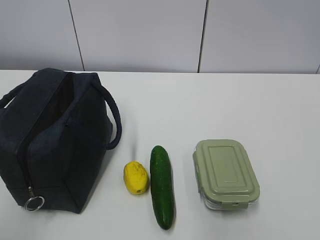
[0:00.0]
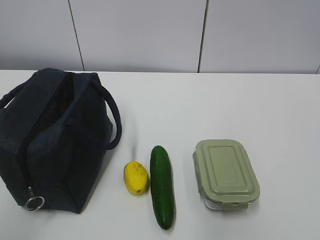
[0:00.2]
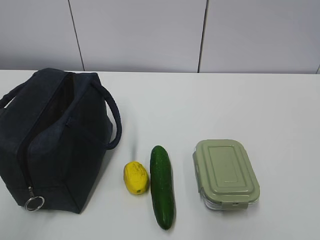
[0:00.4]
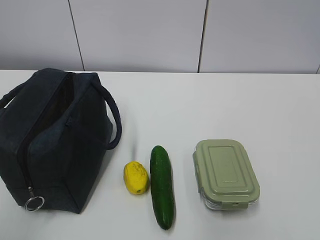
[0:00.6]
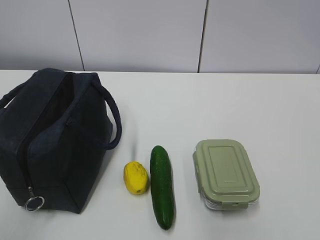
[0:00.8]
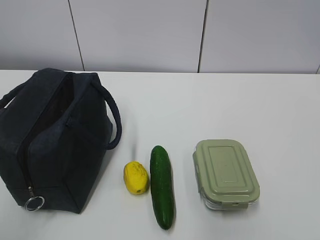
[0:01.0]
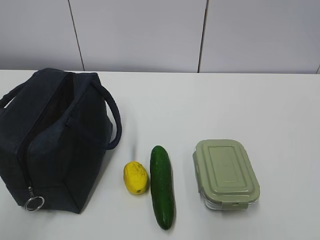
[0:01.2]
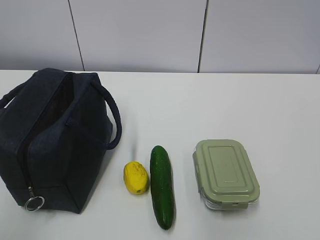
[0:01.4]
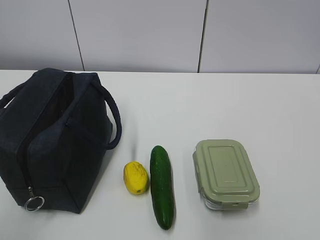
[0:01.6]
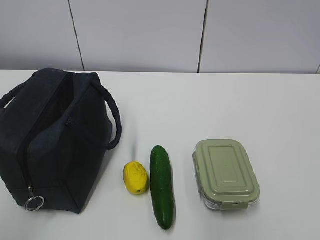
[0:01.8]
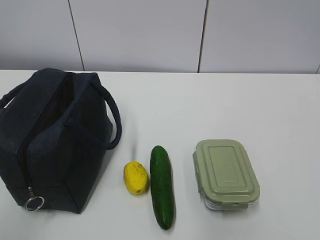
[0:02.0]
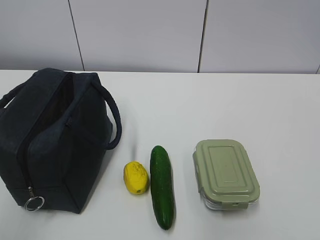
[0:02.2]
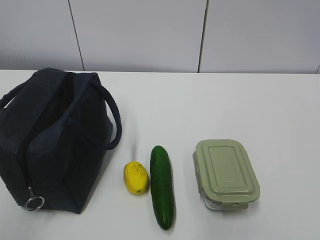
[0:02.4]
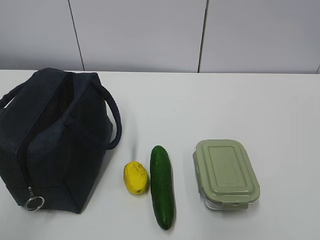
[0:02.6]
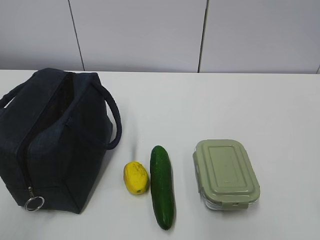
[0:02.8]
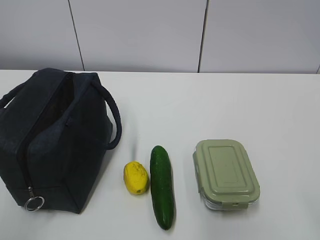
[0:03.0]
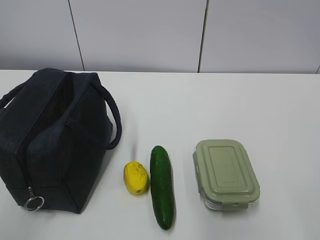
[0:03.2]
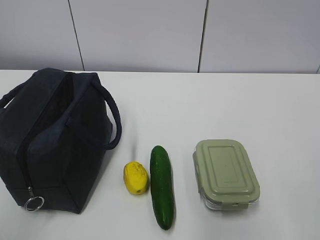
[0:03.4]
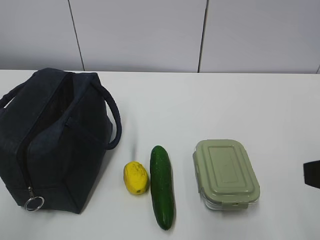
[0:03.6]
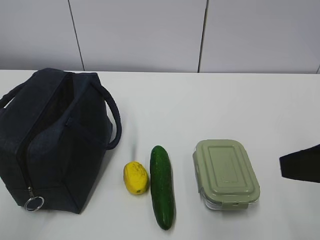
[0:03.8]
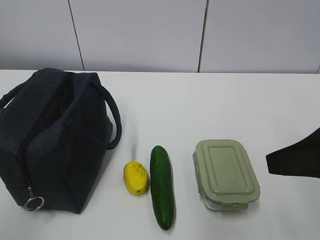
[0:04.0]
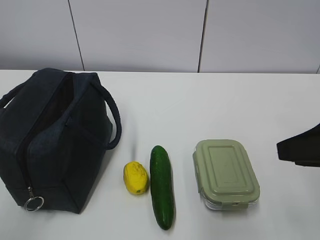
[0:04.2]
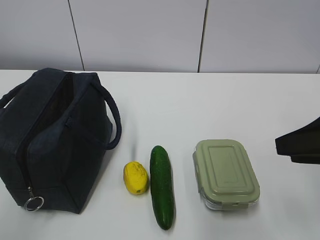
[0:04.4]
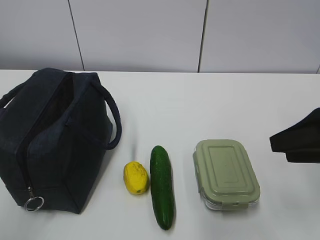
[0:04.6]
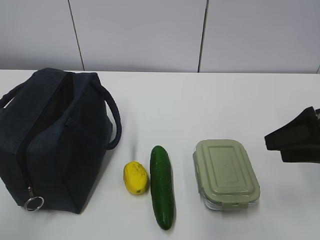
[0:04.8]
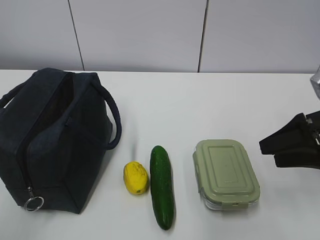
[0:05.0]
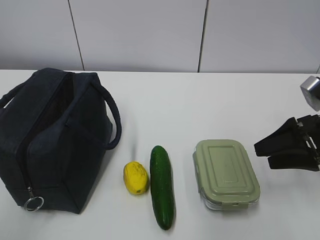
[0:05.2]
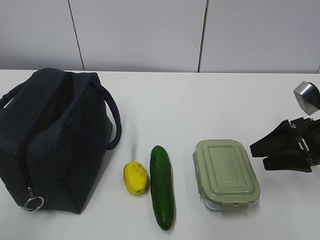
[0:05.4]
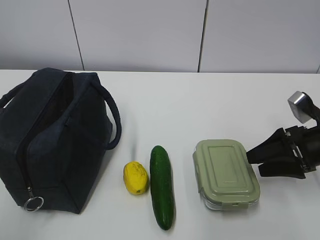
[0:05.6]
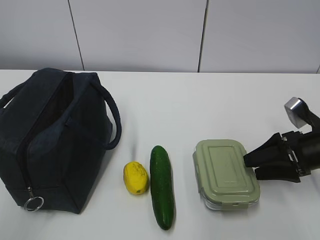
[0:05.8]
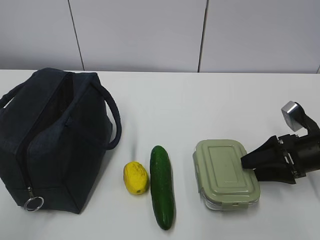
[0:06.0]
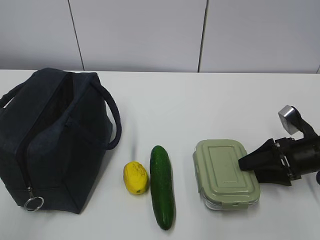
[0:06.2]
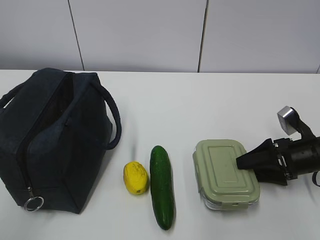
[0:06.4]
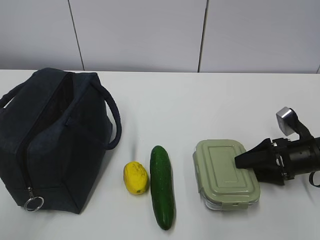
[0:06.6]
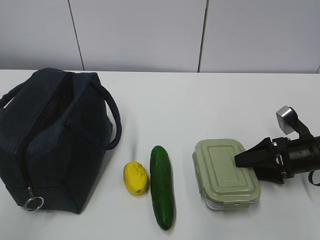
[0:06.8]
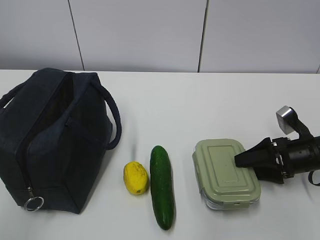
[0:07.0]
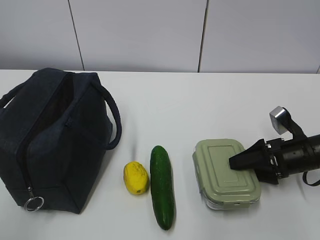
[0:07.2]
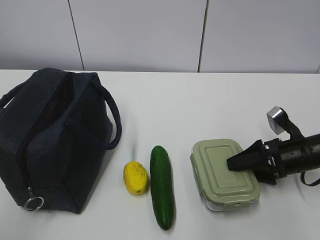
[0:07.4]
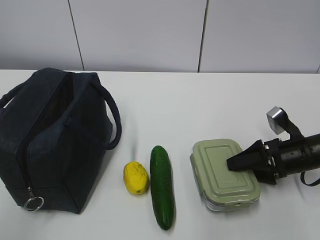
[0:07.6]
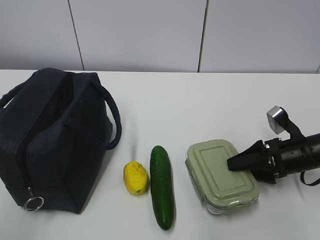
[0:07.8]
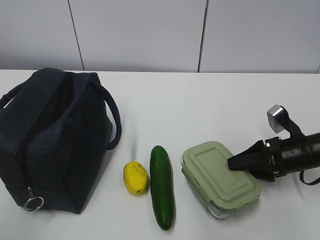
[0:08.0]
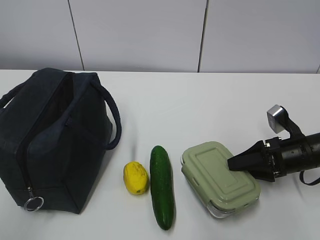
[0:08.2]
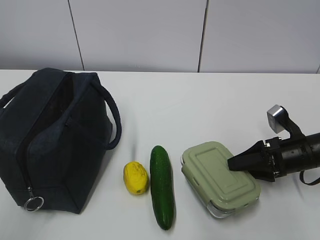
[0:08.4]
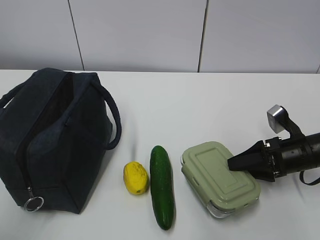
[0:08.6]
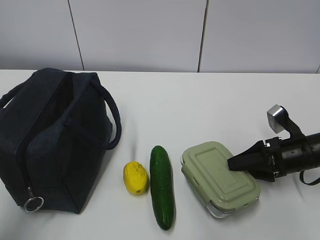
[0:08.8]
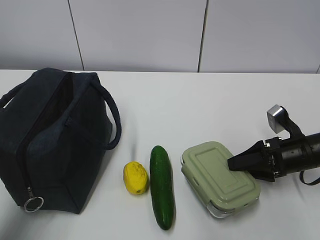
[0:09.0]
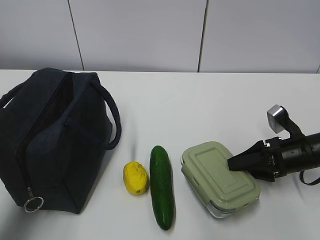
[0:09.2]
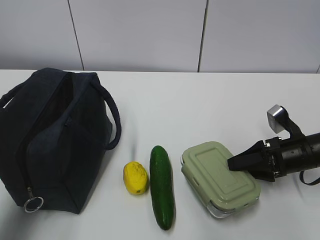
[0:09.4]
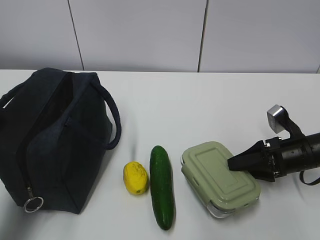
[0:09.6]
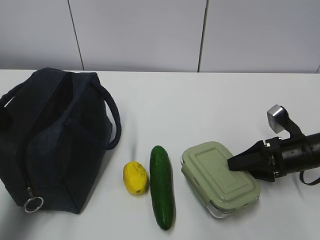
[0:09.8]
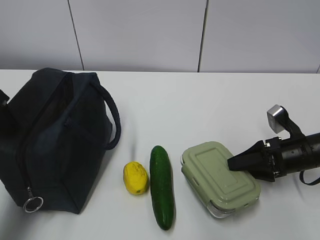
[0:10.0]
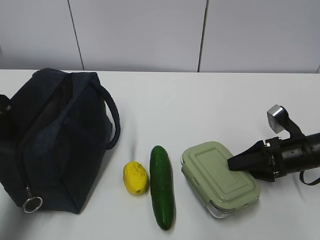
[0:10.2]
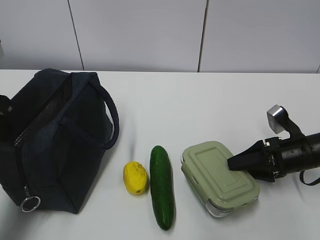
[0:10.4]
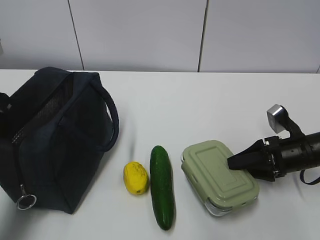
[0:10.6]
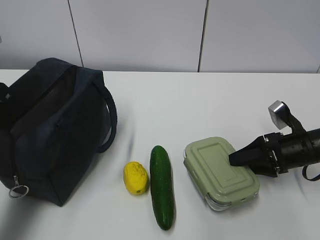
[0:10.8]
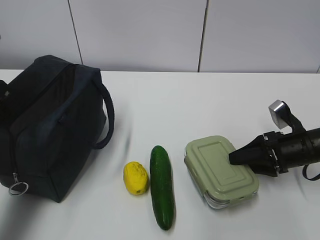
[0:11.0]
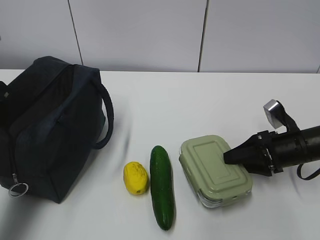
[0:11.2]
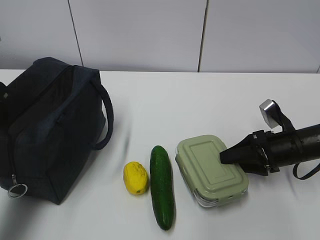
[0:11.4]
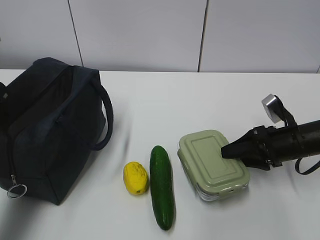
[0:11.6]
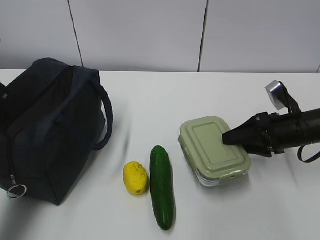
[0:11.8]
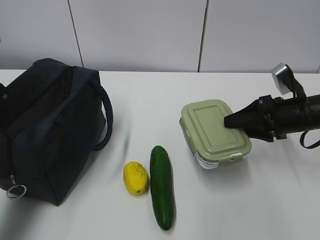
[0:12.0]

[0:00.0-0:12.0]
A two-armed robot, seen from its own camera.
Step, 0:00.0 to 0:06.6: Grab the lunch box with your right hand.
Step, 0:06.8 to 0:11.2: Grab the lunch bag with your left hand.
0:03.0 to 0:04.4: The right gripper shifts approximately 15 cm forward.
0:04.4 to 0:06.0: The right gripper moves downward and forward, some 20 cm.
0:06.0 to 0:07.6: The grippers move only a little.
0:07.6 to 0:09.0: The left gripper goes roughly 15 cm forward.
0:09.0 to 0:10.4: The left gripper is displaced forward and downward by approximately 15 cm, and closes up.
0:10.4 to 0:12.0: The right gripper shifts some 10 cm upward.

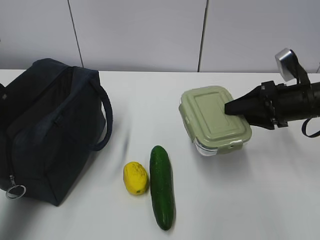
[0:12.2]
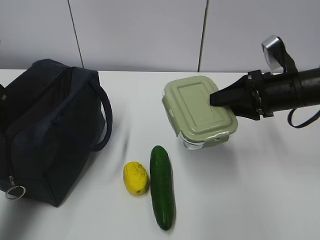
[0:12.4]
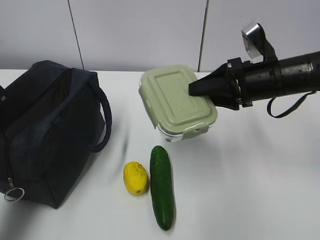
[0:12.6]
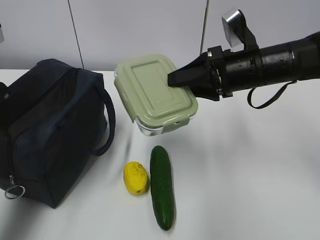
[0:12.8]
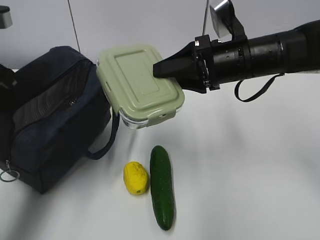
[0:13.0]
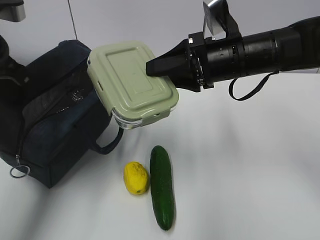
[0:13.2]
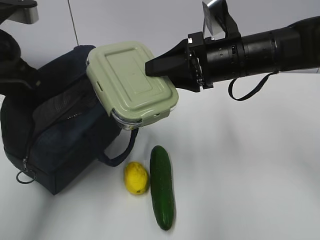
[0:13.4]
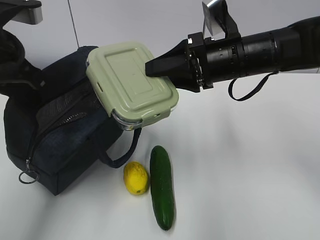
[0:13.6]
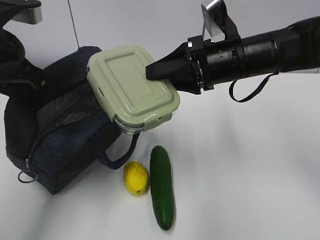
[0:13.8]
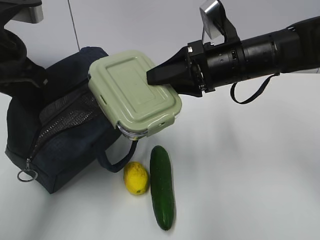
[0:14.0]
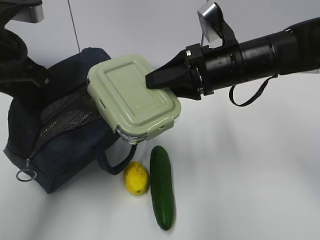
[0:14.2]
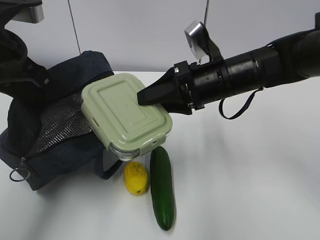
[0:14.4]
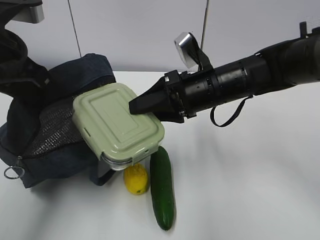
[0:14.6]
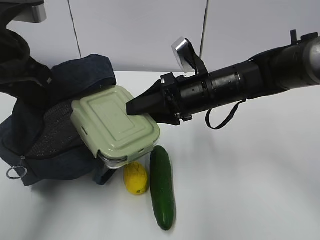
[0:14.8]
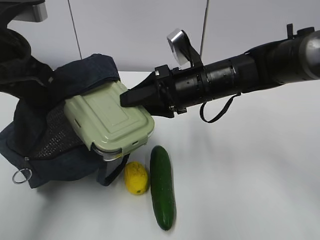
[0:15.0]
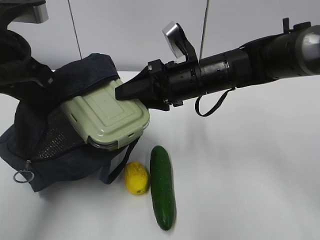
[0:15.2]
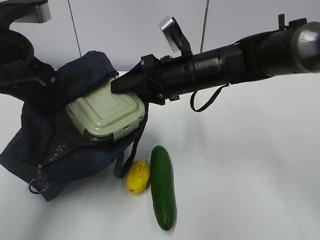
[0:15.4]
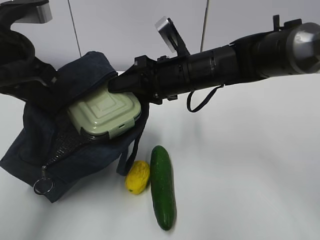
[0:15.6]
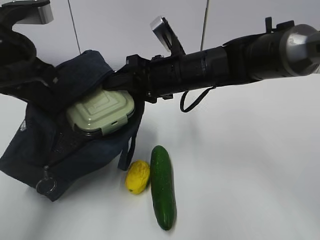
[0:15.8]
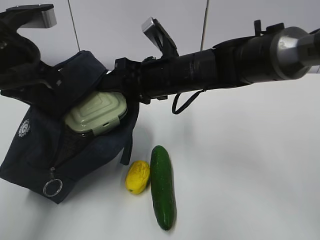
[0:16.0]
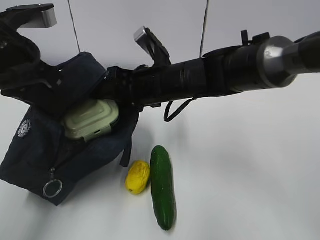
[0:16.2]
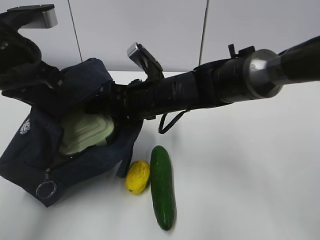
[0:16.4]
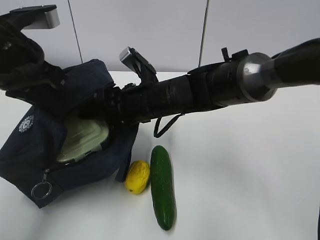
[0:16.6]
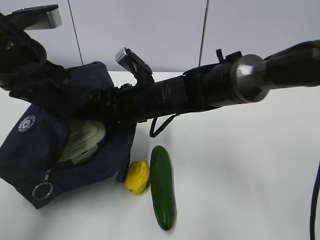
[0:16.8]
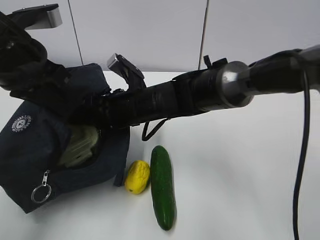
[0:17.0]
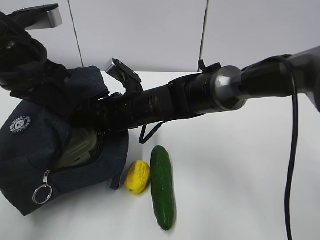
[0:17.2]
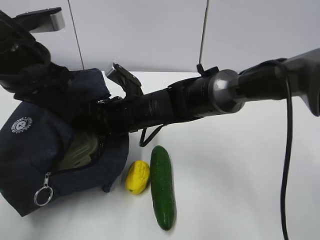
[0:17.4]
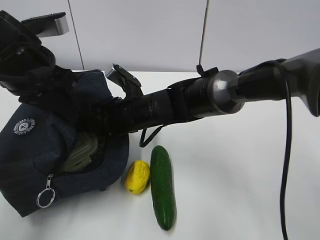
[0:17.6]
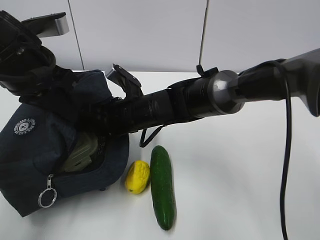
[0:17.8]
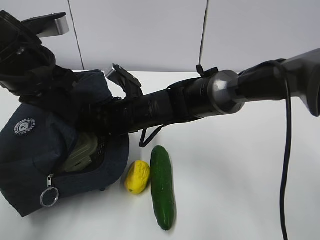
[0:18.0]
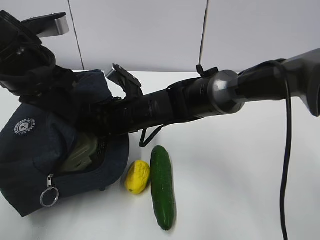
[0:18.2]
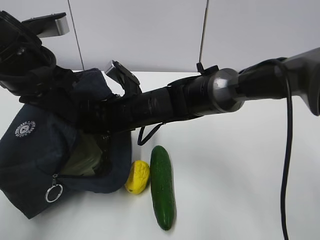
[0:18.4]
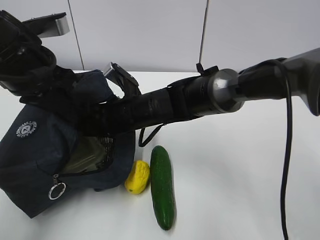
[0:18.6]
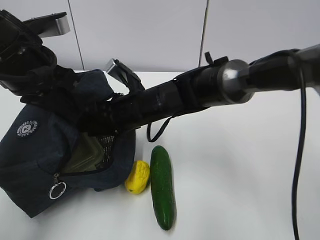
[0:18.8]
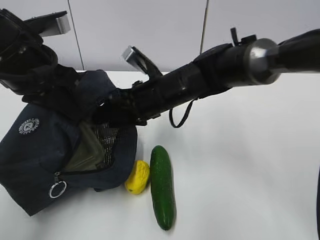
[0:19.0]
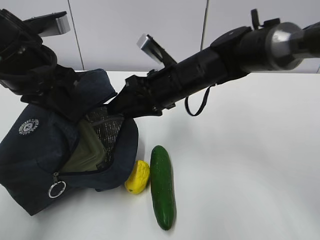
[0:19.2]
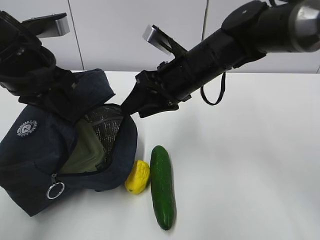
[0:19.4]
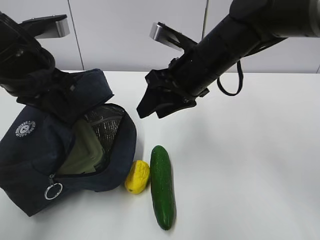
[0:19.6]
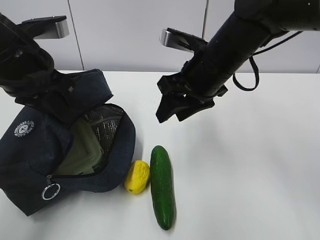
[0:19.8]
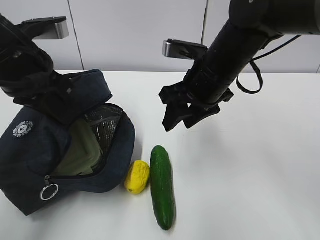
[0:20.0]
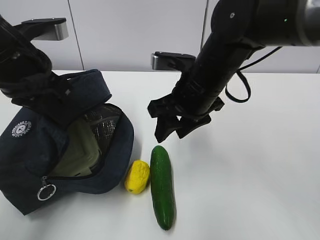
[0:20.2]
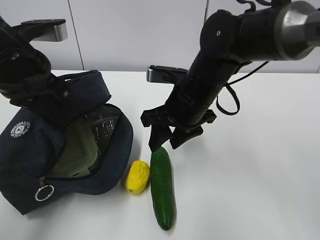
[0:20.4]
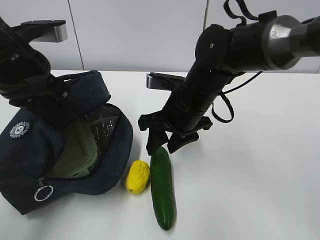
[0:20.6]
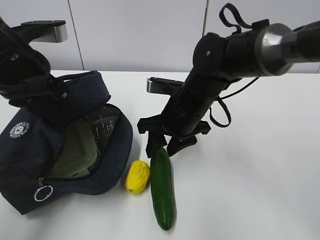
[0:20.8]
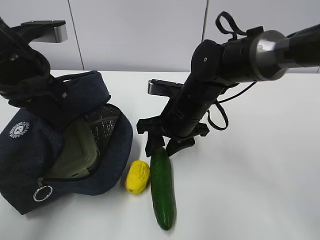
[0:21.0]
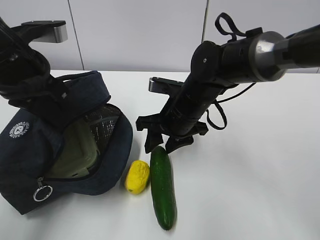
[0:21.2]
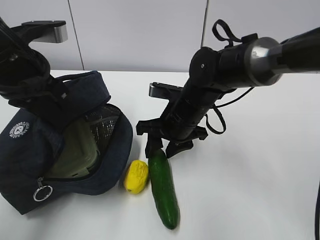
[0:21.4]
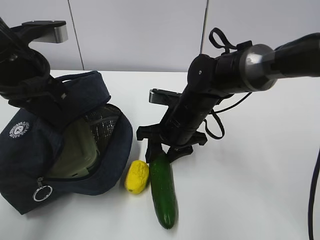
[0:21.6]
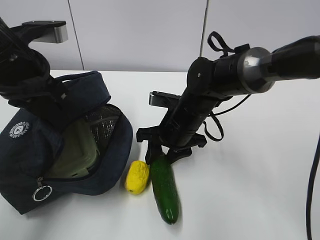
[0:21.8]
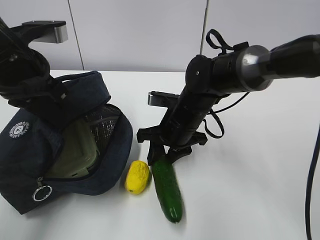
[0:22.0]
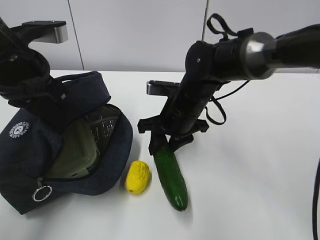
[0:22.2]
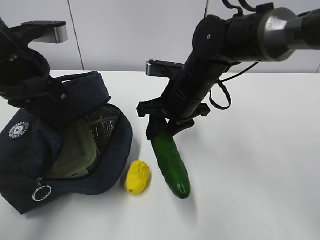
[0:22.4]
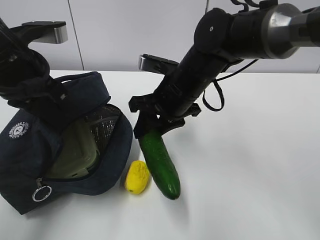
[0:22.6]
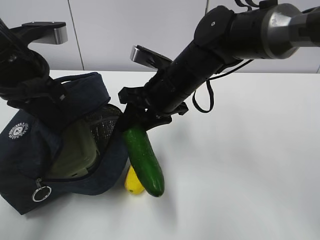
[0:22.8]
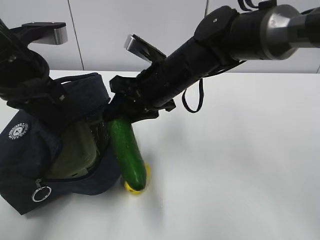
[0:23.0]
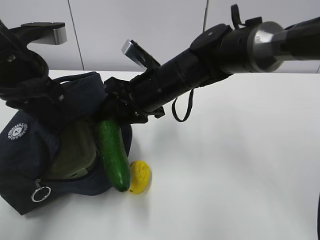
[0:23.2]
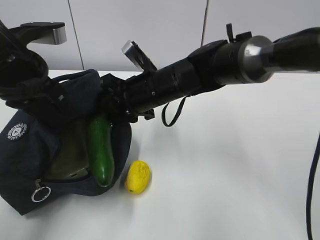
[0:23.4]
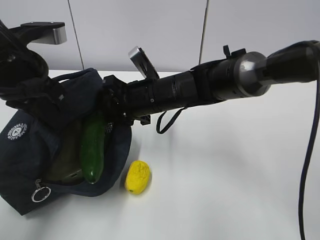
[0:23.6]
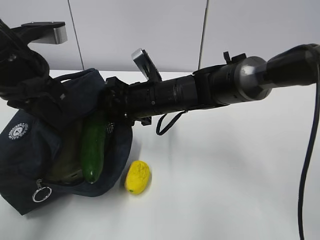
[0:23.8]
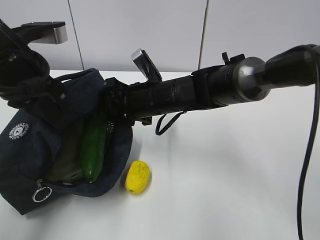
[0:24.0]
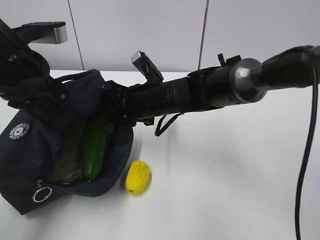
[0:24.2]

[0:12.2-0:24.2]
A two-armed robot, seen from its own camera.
Step, 0:12.2 to 0:15.4: Place it into the bag with your right hand.
Step, 0:15.6 to 0:18.0: Grab the cucumber with your right hand.
Step, 0:18.4 to 0:21.0: Place it into the bag with your right hand.
Step, 0:21.2 to 0:24.0: Grab the lemon with your right hand.
0:12.2 to 0:13.8: The left gripper moves to the right, approximately 5 cm. Meanwhile the right gripper moves to the left and upward, roughly 15 cm.
0:13.8 to 0:15.2: The right gripper heads to the left, covering approximately 5 cm.
0:15.2 to 0:16.6: The right gripper shifts approximately 10 cm to the left.
0:18.2 to 0:19.8: The right gripper is displaced to the right and upward by approximately 15 cm.
0:19.8 to 0:21.2: The right gripper goes some 10 cm downward.
0:21.2 to 0:22.6: There are only small adjustments of the grippers.
0:22.6 to 0:24.2: The right gripper shifts by about 5 cm.
